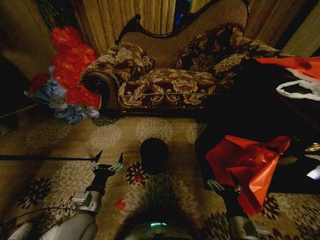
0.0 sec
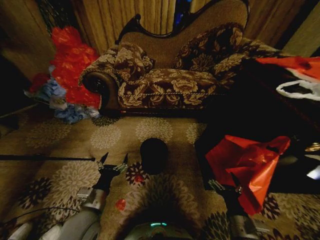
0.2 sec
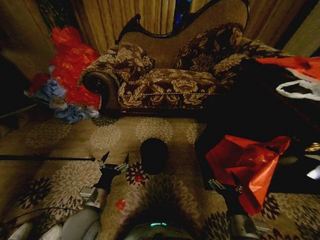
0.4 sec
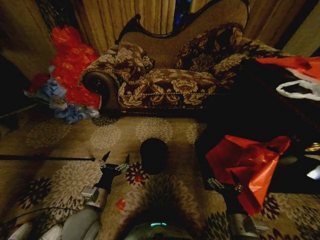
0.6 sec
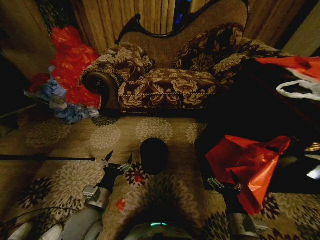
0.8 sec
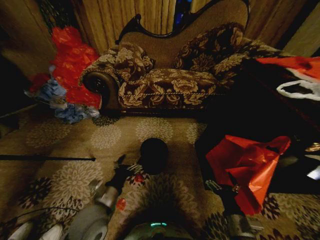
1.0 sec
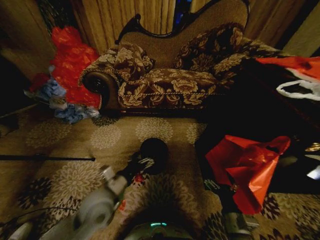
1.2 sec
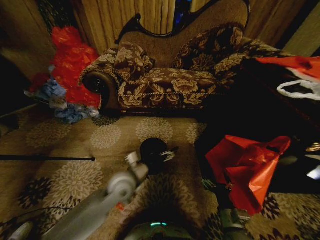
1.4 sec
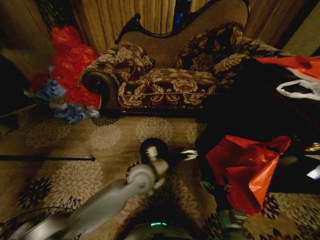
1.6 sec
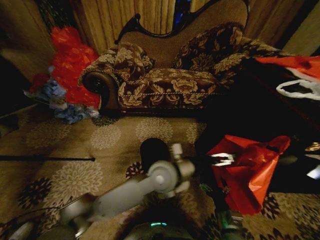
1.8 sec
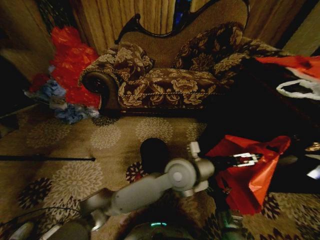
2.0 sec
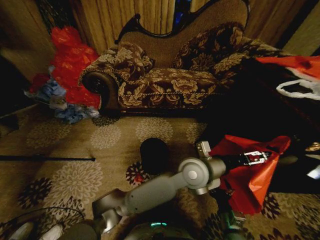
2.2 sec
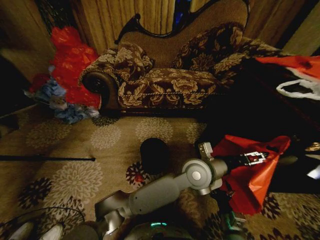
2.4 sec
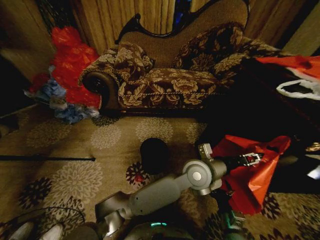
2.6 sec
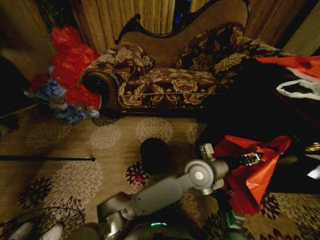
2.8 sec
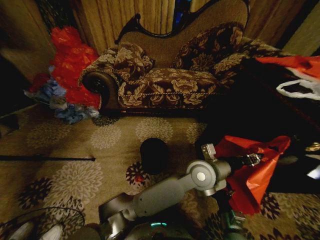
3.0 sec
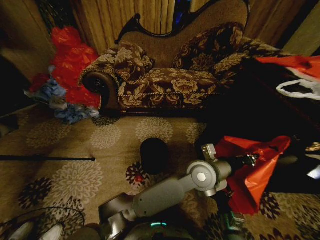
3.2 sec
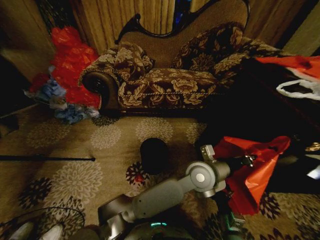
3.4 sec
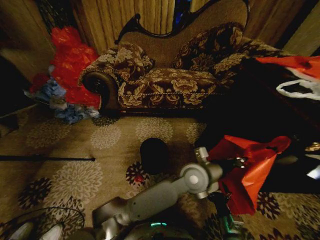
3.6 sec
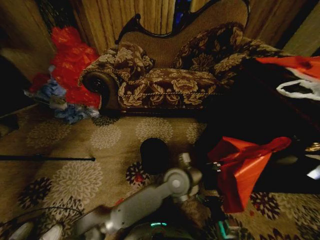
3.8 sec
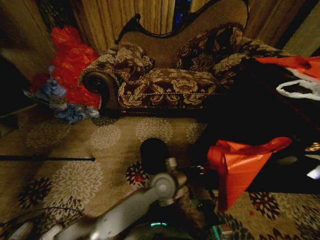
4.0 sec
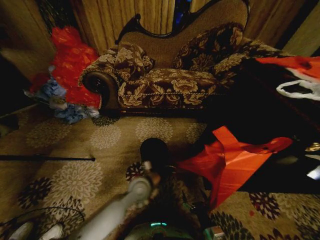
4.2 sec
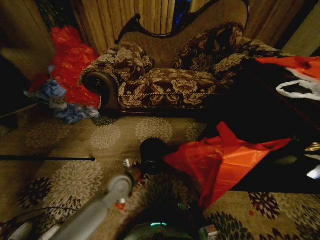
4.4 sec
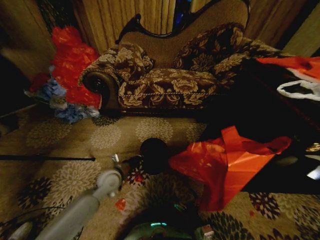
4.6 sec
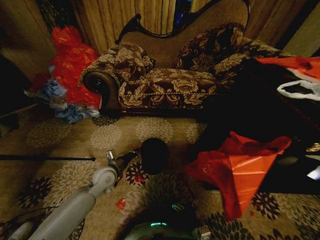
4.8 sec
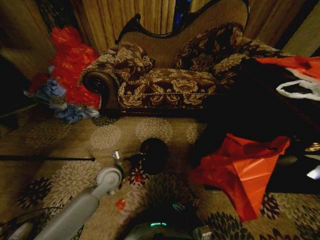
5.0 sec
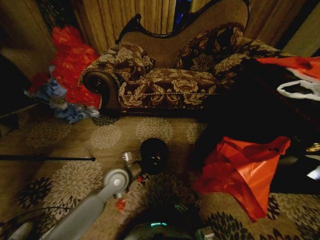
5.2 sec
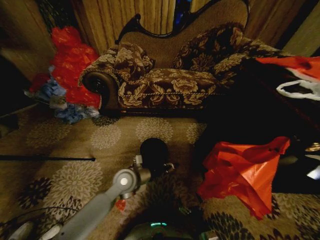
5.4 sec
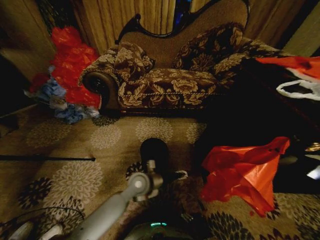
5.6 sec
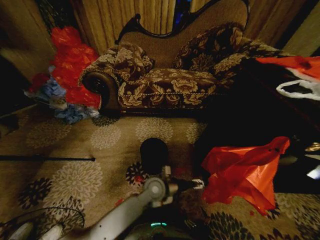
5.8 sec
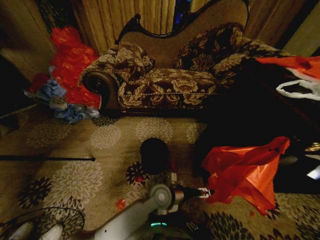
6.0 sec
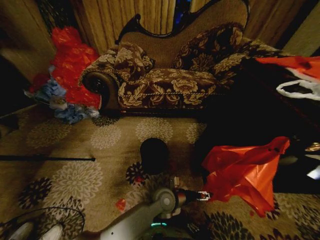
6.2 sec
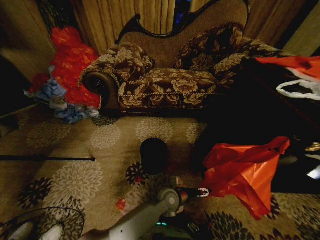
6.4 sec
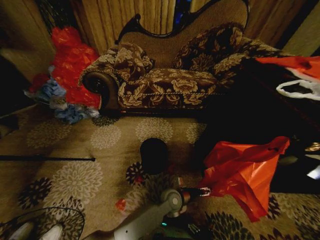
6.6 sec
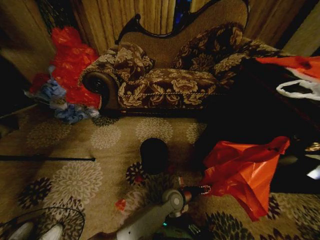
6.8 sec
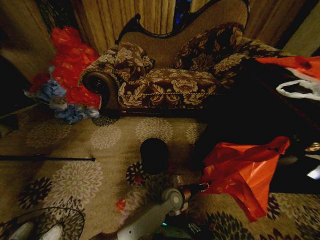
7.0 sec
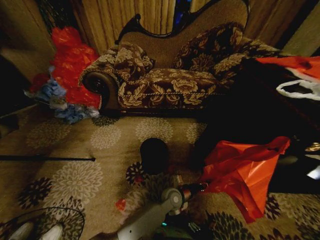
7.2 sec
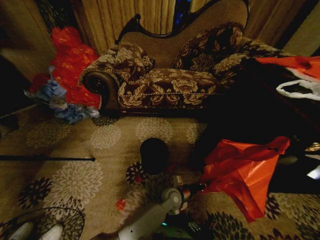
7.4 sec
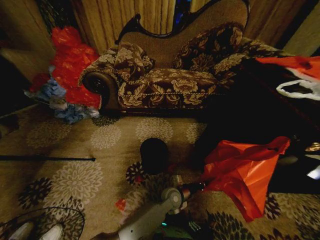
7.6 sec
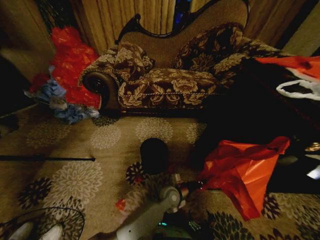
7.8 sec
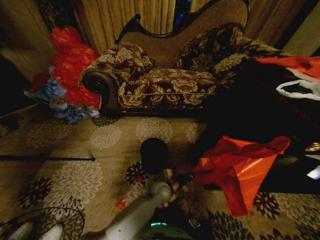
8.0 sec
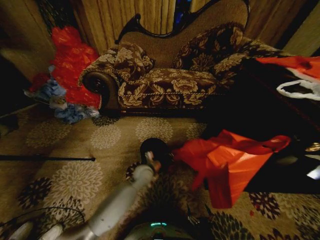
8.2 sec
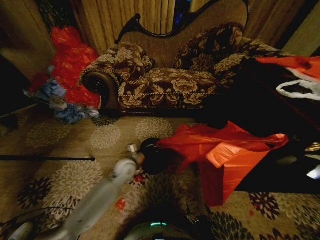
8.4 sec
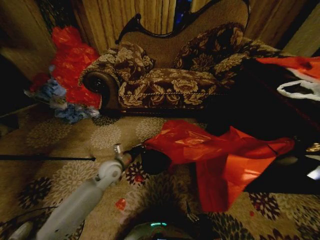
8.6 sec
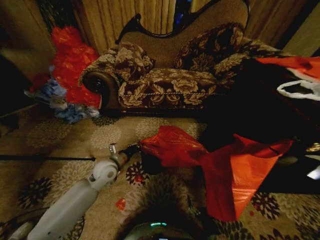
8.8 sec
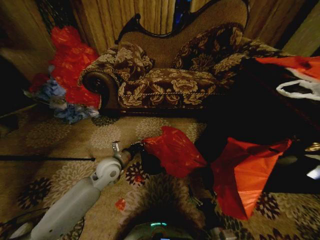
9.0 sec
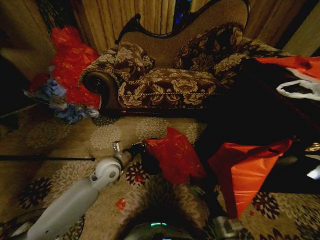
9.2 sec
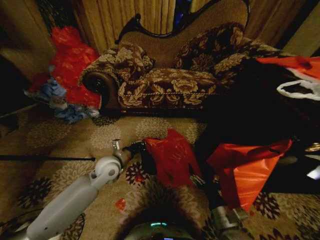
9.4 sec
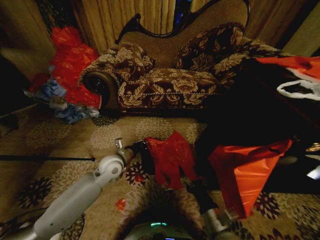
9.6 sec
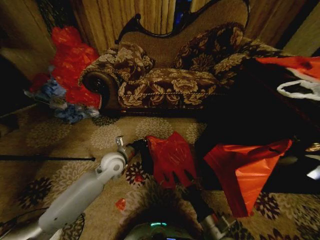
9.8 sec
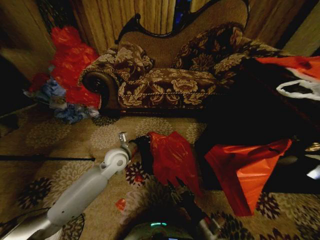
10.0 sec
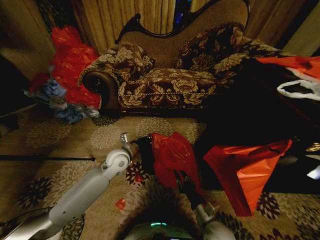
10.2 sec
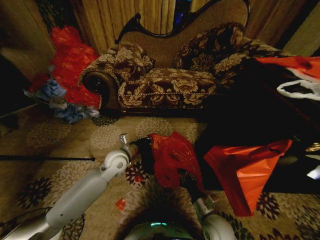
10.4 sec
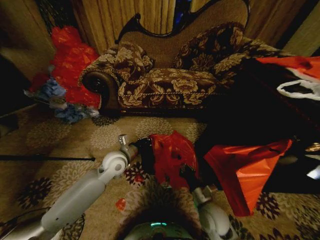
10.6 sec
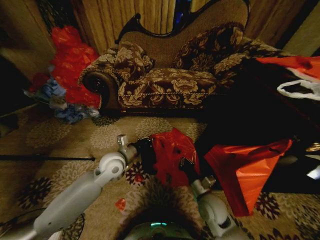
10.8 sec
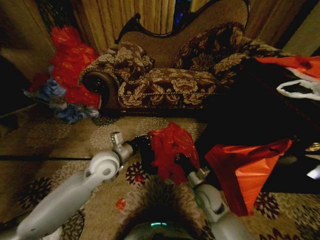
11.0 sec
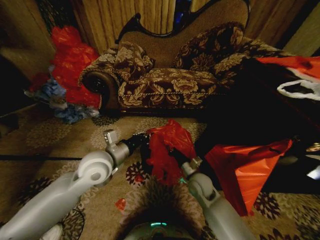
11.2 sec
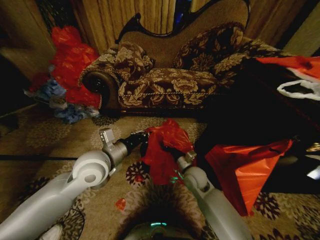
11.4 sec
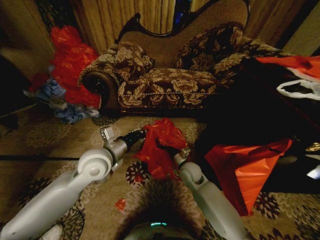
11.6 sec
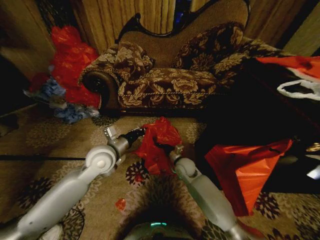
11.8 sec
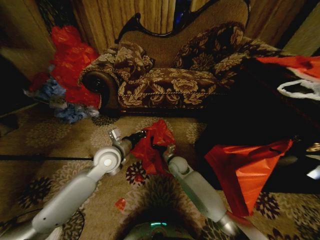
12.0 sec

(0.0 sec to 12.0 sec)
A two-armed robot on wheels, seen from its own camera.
Task of the whole recording: Place a garbage bag over the trash bin.
1.6 sec - 3.0 sec: The left gripper is displaced to the right by about 20 cm, and closes.
3.0 sec - 4.4 sec: The left gripper is displaced to the left by approximately 30 cm. Meanwhile the right gripper is displaced downward and to the left by approximately 10 cm.
4.4 sec - 6.0 sec: The right gripper goes some 10 cm downward and backward; the left gripper moves to the right, some 15 cm, and opens its fingers.
6.0 sec - 7.6 sec: The left gripper is displaced downward and to the right by about 10 cm, and closes.
7.6 sec - 9.0 sec: The left gripper moves to the left and upward, roughly 30 cm, while the right gripper moves upward and forward, approximately 10 cm.
9.0 sec - 10.4 sec: The right gripper heads forward and upward, covering roughly 10 cm, and closes its fingers.
10.4 sec - 12.0 sec: The right gripper is displaced forward and to the left by some 25 cm.

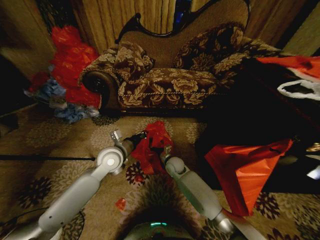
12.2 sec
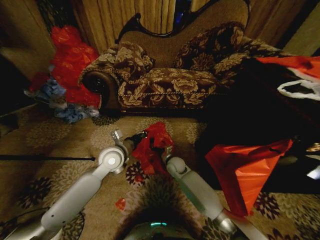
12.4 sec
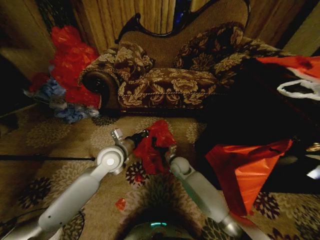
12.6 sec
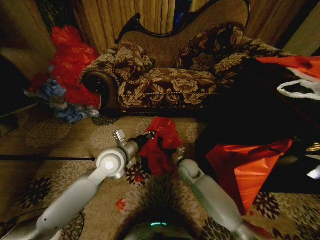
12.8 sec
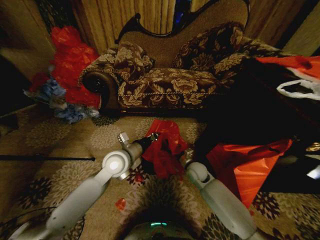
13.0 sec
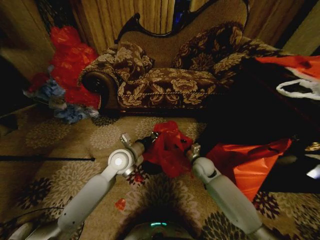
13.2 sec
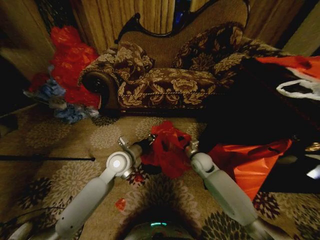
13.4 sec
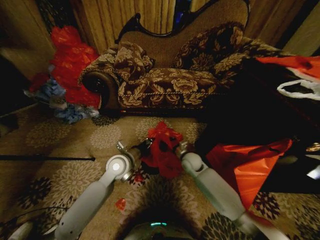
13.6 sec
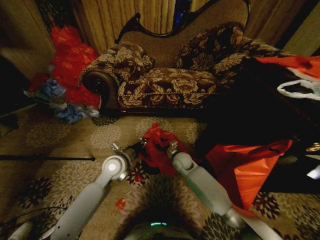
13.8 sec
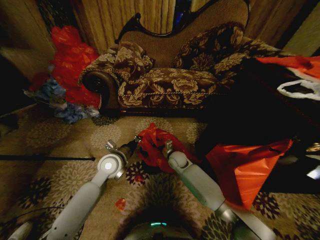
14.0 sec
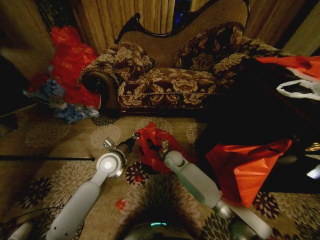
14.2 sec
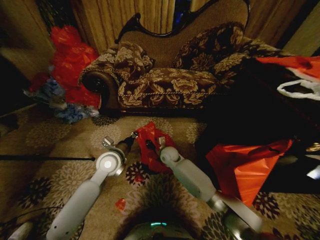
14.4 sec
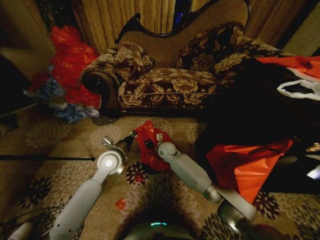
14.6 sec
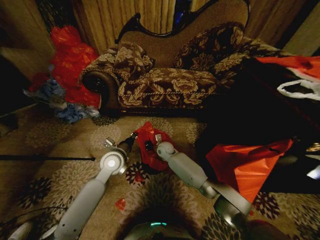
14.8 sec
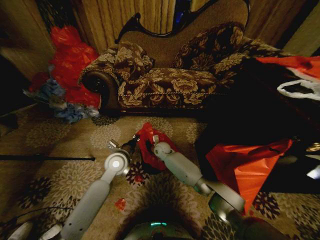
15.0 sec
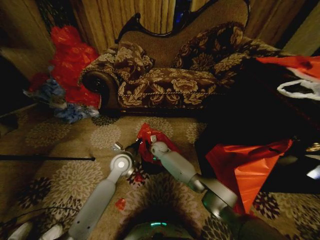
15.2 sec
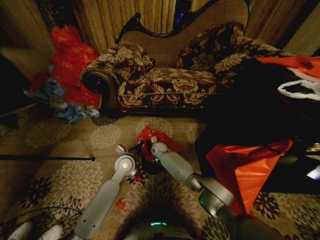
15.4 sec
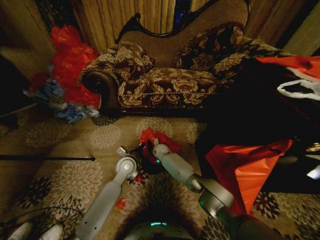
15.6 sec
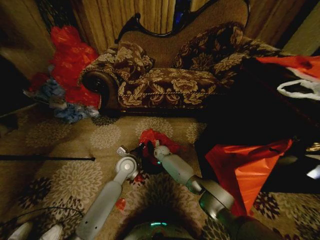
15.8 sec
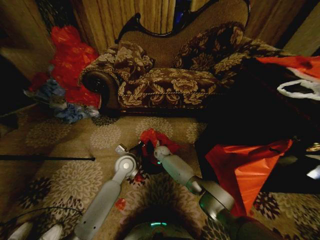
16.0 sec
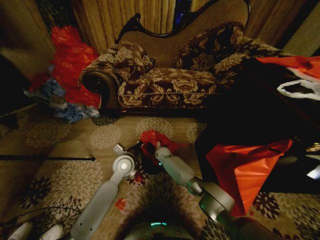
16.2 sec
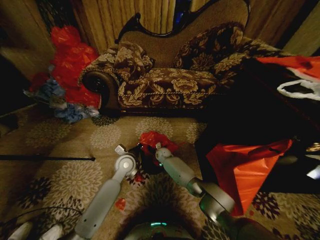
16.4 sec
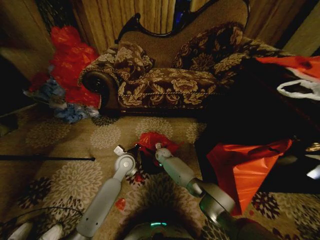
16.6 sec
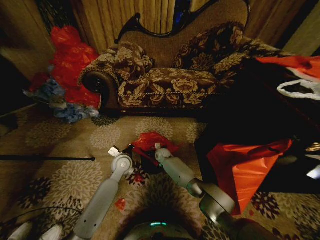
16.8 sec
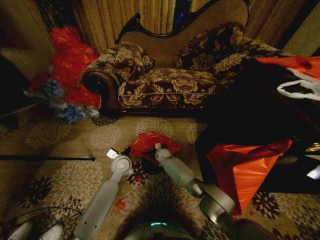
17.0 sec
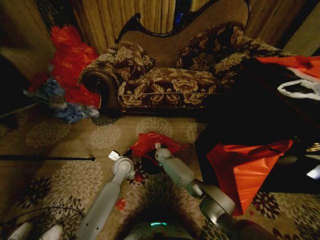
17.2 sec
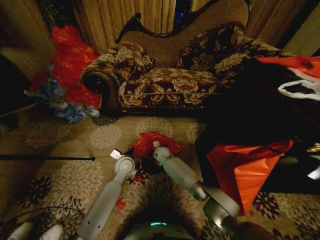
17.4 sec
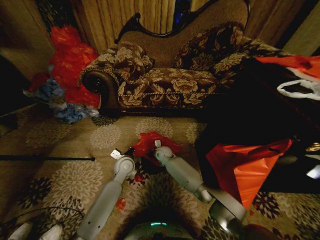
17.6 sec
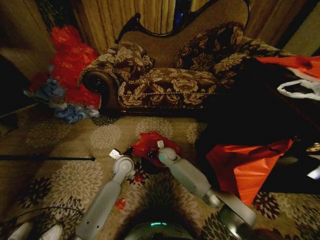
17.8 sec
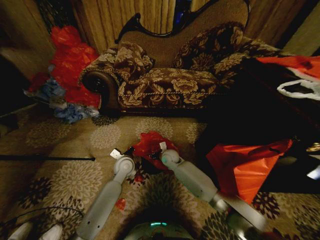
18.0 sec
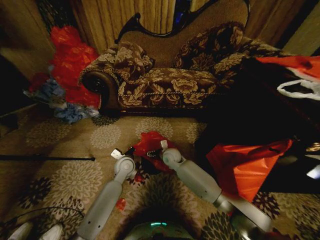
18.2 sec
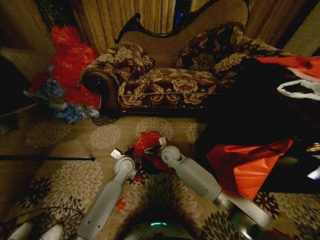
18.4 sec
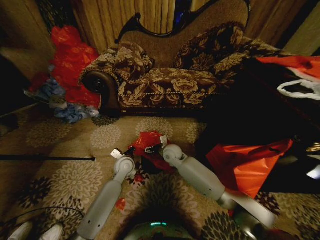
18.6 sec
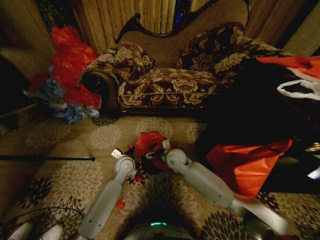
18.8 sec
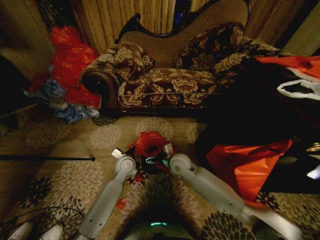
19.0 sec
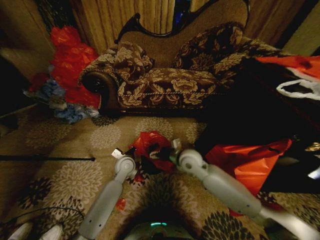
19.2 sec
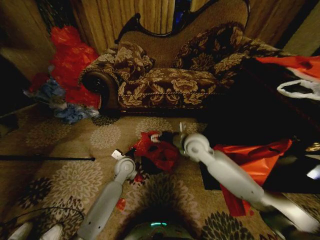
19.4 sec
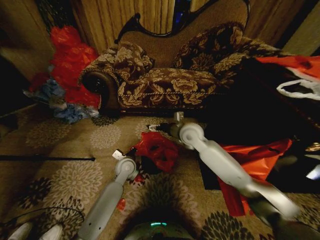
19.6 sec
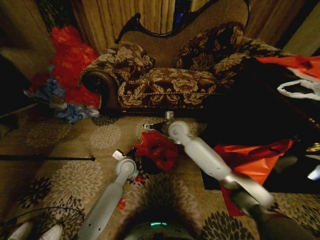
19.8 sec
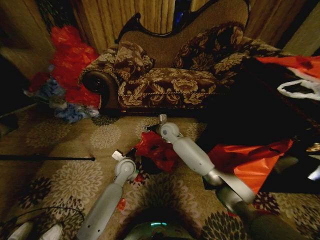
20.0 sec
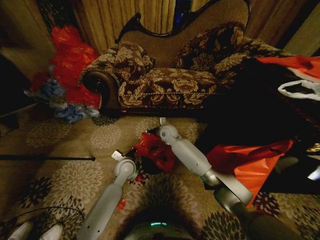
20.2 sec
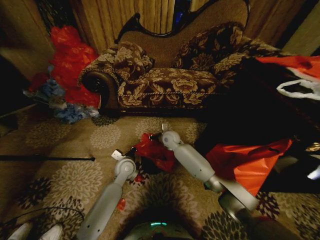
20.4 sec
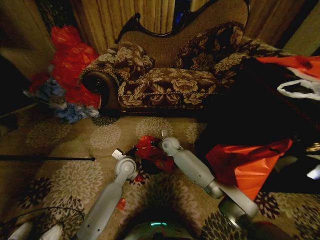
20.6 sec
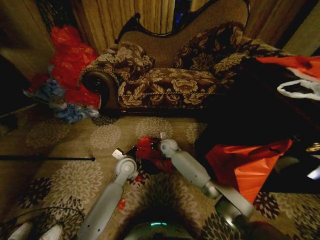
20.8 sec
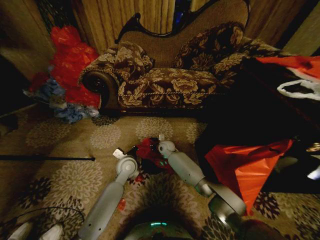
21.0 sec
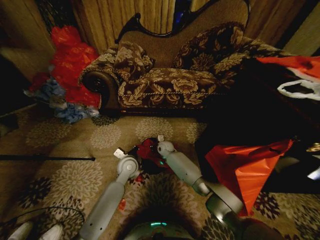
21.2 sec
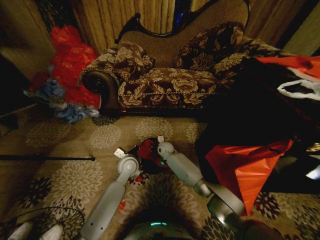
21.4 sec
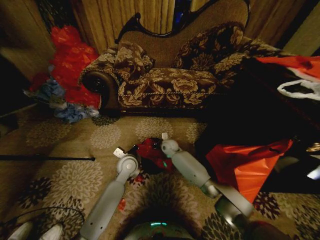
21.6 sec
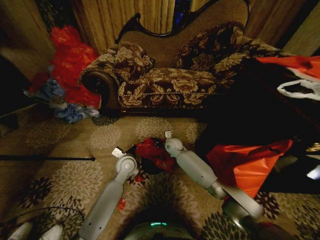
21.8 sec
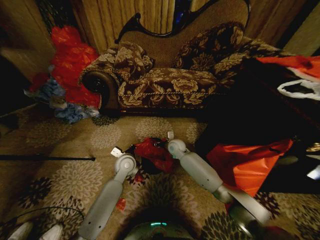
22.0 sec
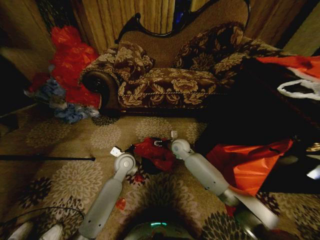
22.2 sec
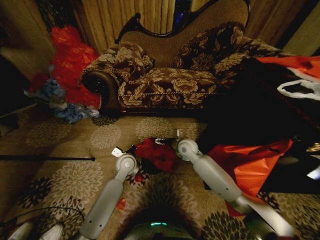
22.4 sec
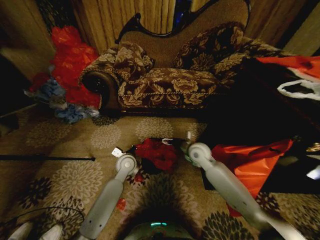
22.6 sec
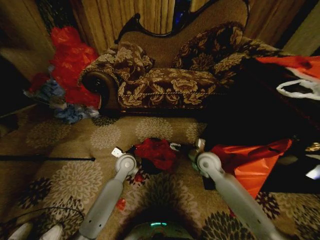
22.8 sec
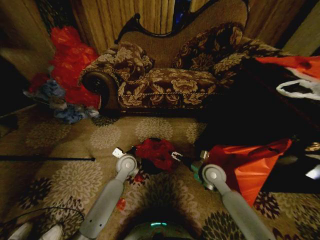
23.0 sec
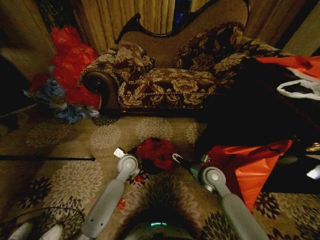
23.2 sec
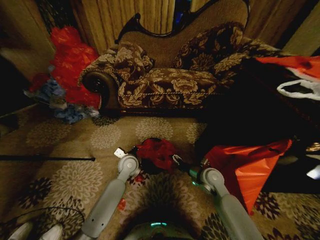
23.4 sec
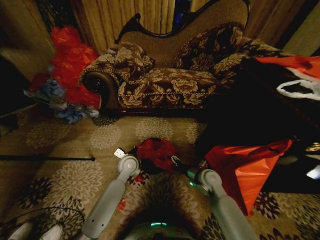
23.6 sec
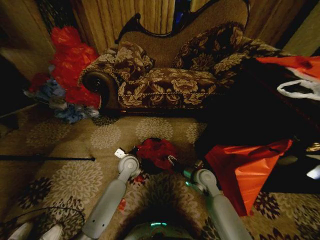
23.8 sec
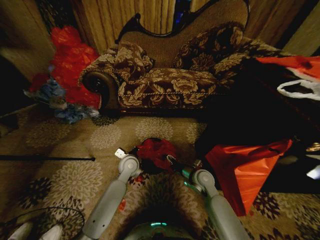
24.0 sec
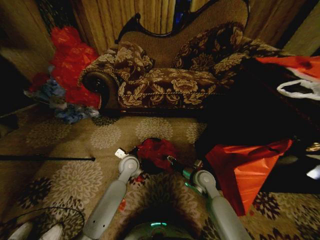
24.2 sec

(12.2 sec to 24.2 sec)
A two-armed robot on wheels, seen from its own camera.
Task of the whole recording: Place a garbage bag over the trash bin.
12.2 sec - 13.8 sec: The right gripper travels to the right and back again, approximately 15 cm each way.
13.8 sec - 15.2 sec: The right gripper shifts approximately 15 cm to the left and forward.
15.2 sec - 16.6 sec: The right gripper travels downward by about 5 cm.
16.6 sec - 18.2 sec: The right gripper moves upward and backward, some 10 cm, and opens.
18.2 sec - 19.8 sec: The right gripper travels upward by some 15 cm.
19.8 sec - 21.2 sec: The right gripper goes some 20 cm downward, and closes.
21.2 sec - 22.6 sec: The right gripper moves to the right, upward and backward, approximately 20 cm, and opens.
22.6 sec - 24.2 sec: The right gripper travels downward and backward by roughly 15 cm.
